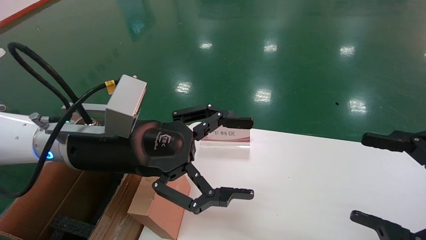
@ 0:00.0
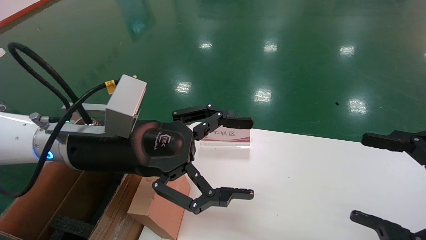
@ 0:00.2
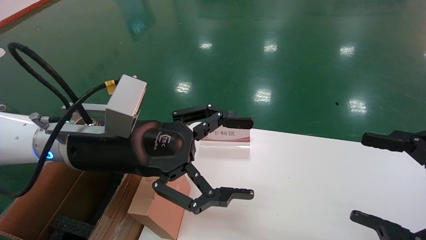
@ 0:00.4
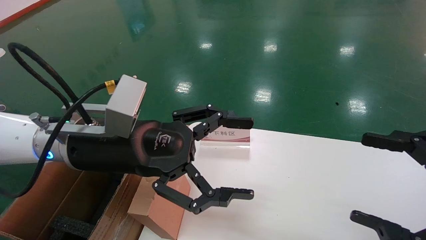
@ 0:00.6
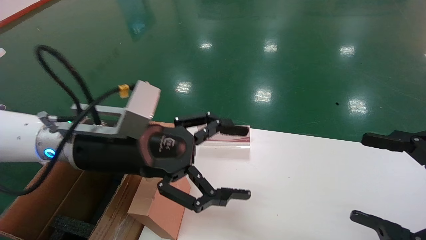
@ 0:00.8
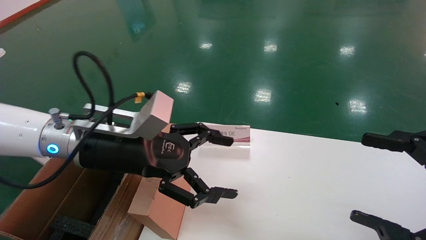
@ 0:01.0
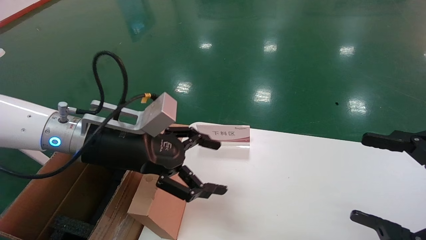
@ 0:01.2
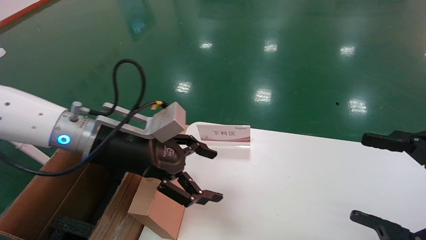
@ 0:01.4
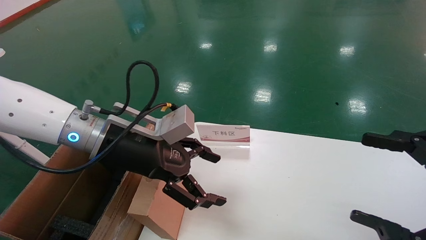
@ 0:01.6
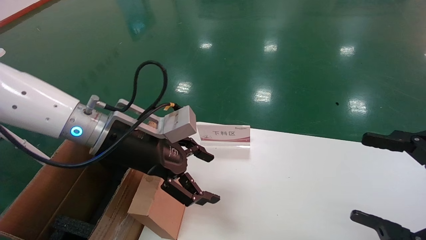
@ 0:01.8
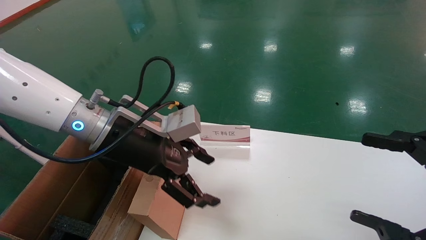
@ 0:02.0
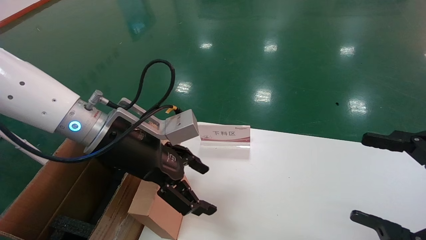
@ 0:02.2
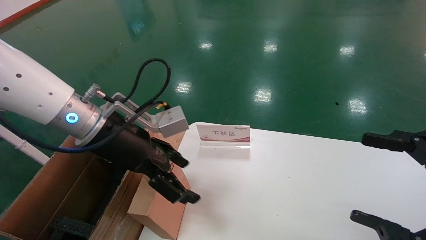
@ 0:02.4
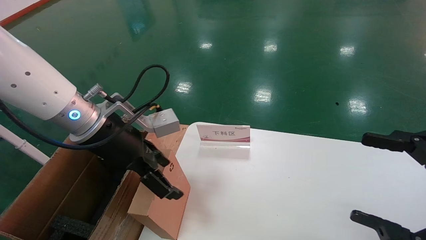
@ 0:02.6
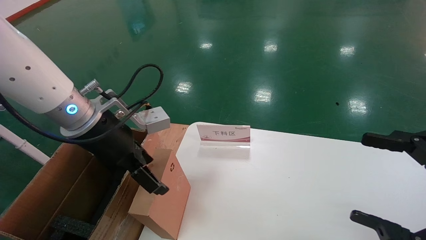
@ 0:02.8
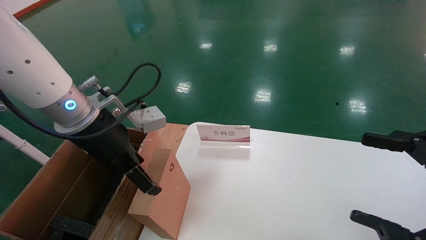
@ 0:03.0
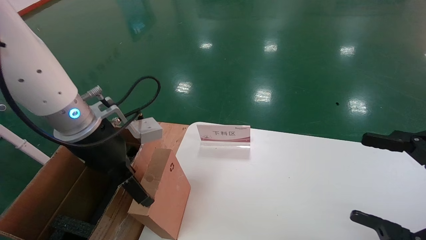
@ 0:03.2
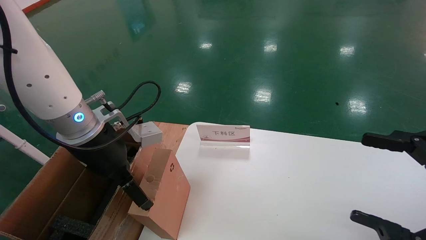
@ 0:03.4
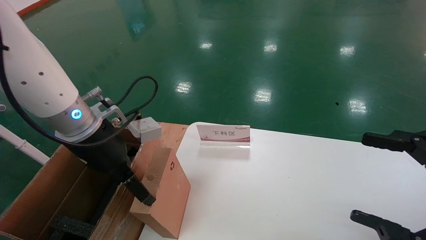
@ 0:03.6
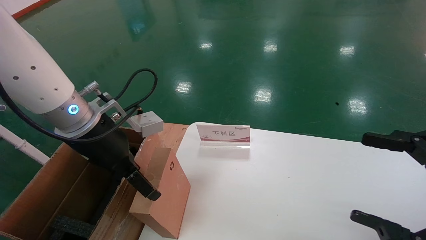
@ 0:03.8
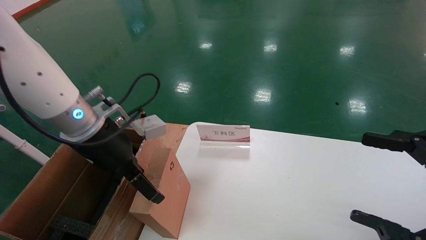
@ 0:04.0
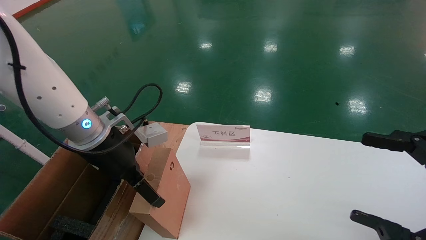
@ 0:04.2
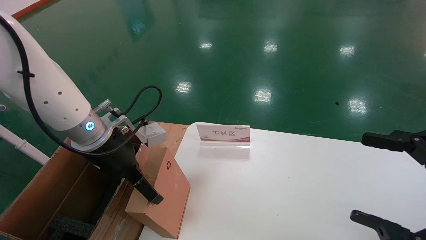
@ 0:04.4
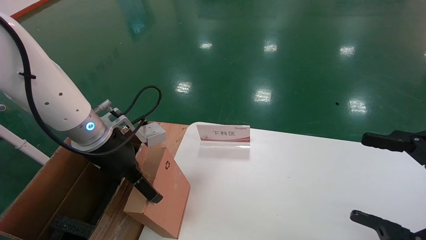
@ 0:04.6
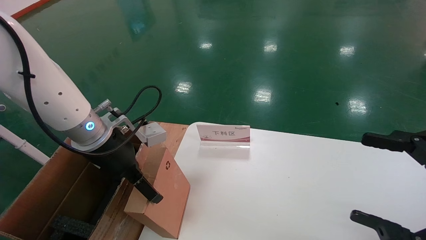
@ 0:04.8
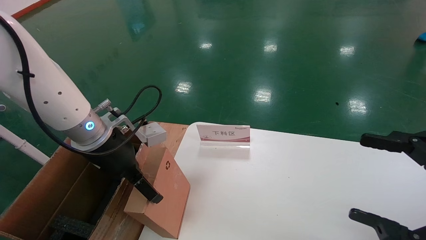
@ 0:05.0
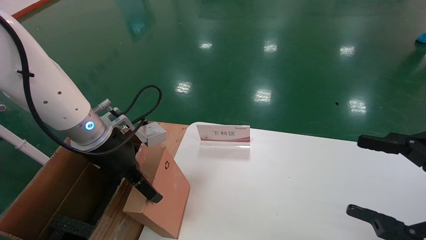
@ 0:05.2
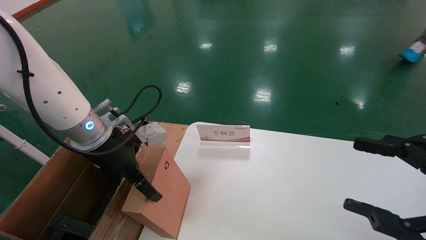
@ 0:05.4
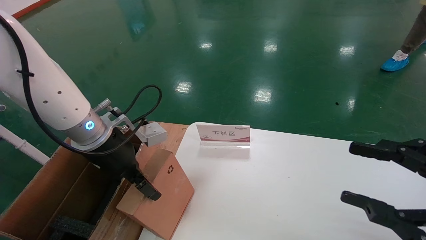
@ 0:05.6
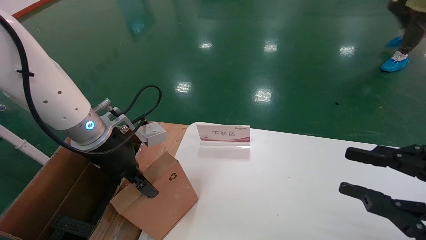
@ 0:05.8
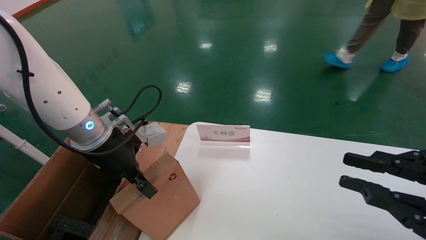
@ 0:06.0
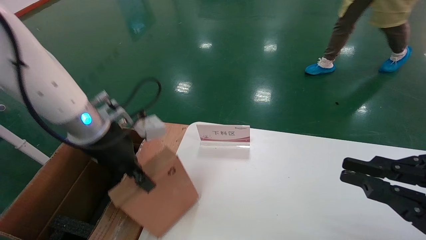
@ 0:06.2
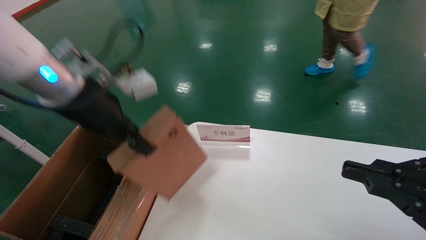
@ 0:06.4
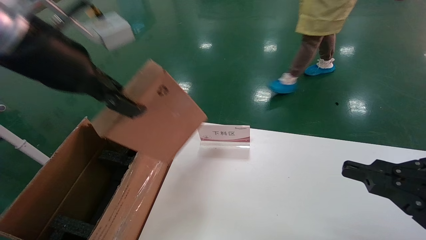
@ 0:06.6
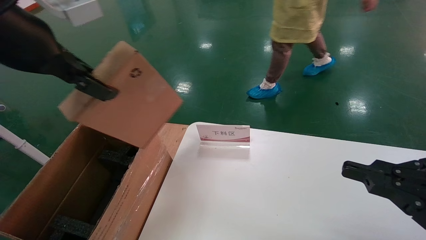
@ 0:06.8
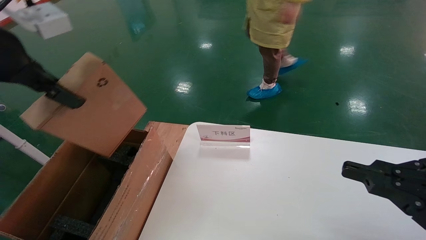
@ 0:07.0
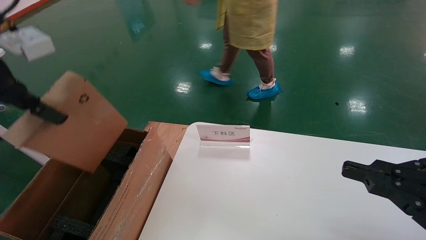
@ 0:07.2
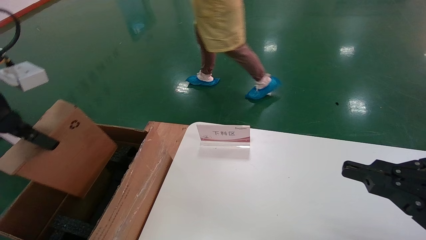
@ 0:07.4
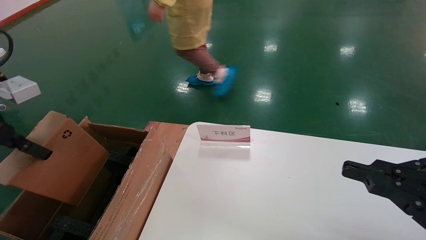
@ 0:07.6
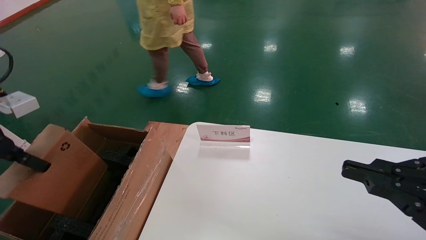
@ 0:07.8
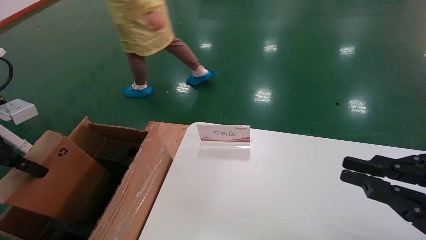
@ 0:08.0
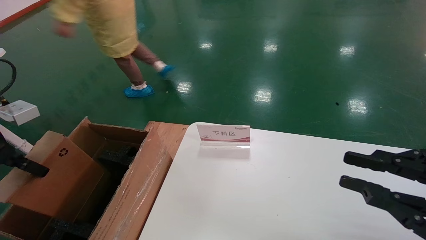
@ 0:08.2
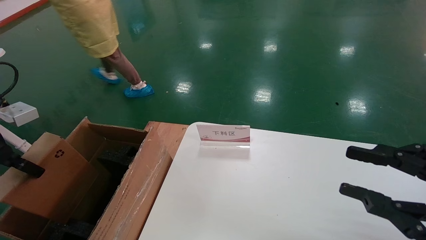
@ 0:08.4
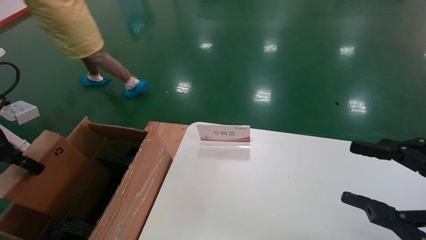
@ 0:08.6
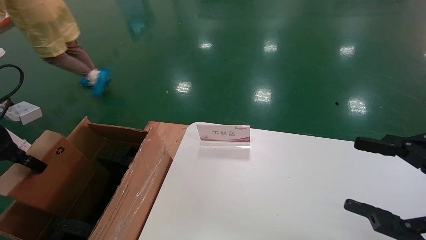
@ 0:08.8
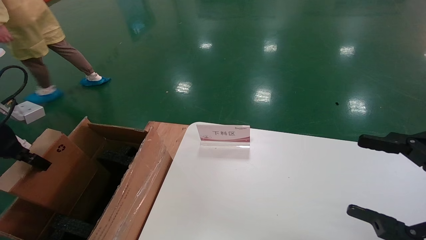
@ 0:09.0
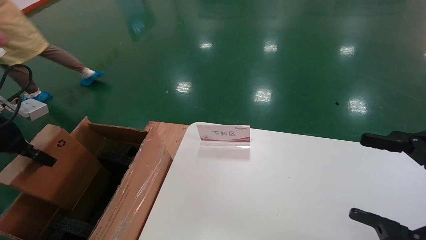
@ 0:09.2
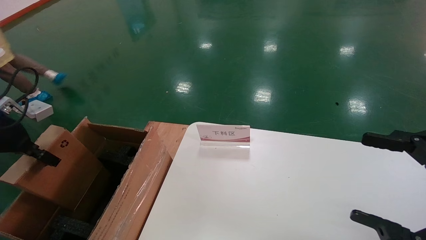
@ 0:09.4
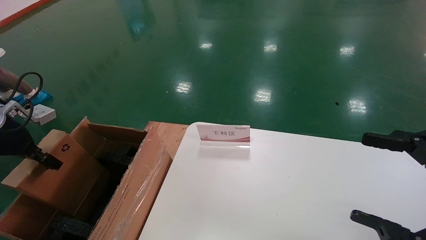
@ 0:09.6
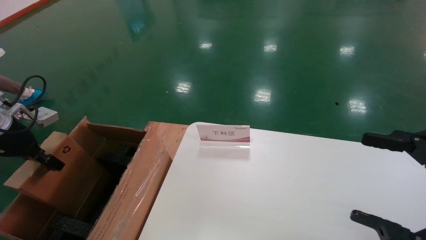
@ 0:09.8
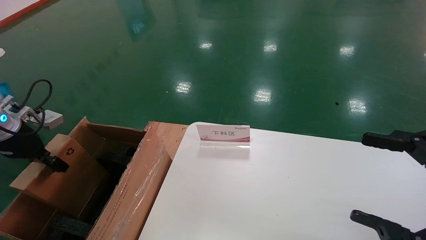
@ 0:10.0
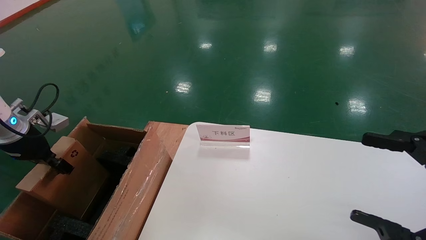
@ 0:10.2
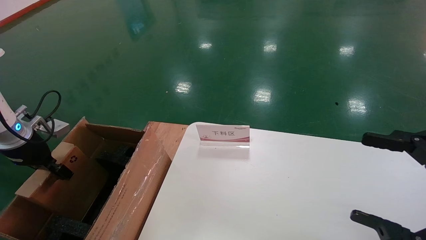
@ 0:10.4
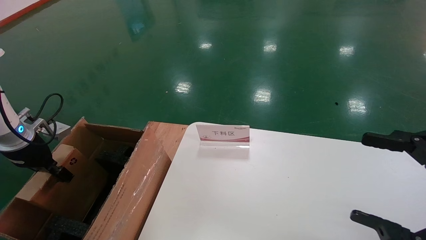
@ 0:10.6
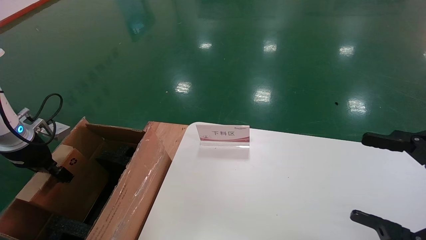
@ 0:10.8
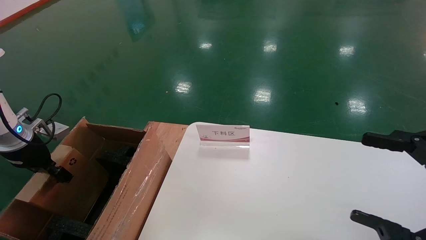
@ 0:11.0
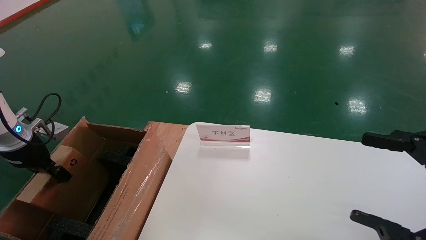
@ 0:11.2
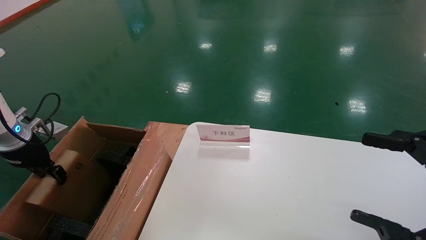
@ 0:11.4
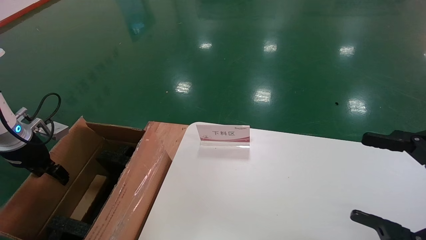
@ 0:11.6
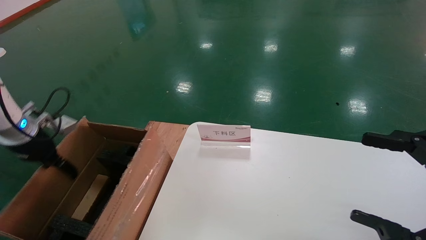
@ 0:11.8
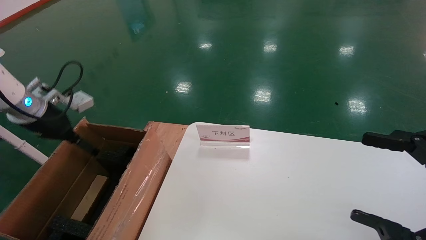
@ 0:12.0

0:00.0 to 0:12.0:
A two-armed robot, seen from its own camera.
Task of the whole recording: pick up the small cardboard box and load it into the large cardboard box.
Step, 0:00.8 to 0:06.4: Pick up the mouse and power cord box.
Step, 0:06.6 to 0:11.6: Place the mouse and power cord box into the case.
0:03.0 to 0:04.4: The grippers stay close to where they were, moving slightly.
0:04.4 to 0:06.0: The left gripper closes up. Meanwhile the right gripper closes its fingers.
0:06.0 to 0:07.6: The left gripper moves to the left, backward and upward, approximately 20 cm.
0:07.6 to 0:09.0: The right gripper opens; the left gripper heads to the left and downward, covering roughly 10 cm.
0:09.0 to 0:10.4: The left gripper moves downward and forward, about 10 cm.
0:10.4 to 0:12.0: The left gripper travels upward and to the right by approximately 10 cm, and opens up.

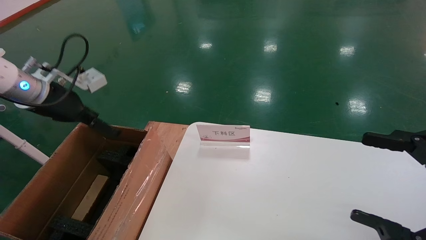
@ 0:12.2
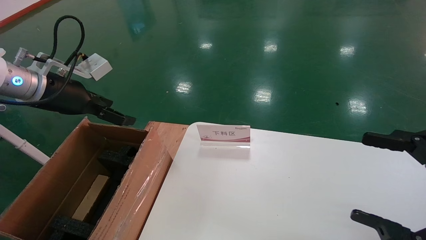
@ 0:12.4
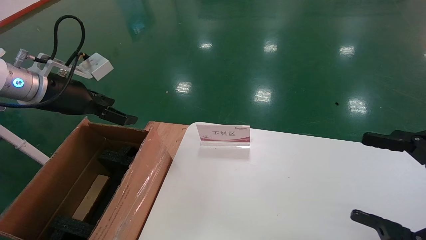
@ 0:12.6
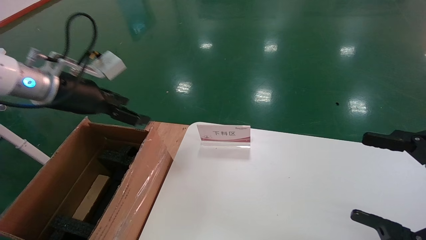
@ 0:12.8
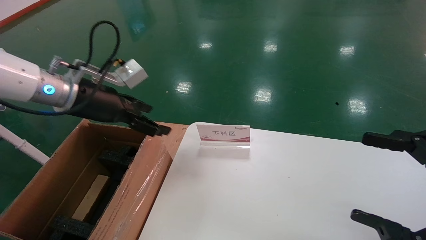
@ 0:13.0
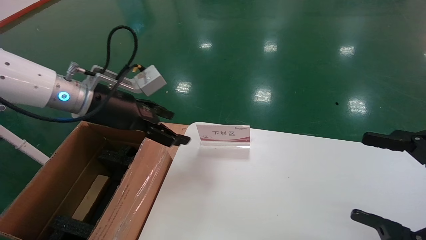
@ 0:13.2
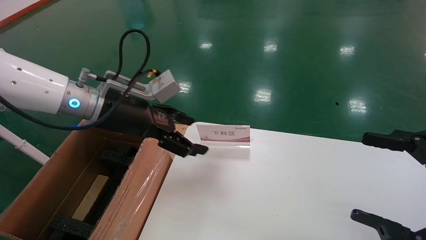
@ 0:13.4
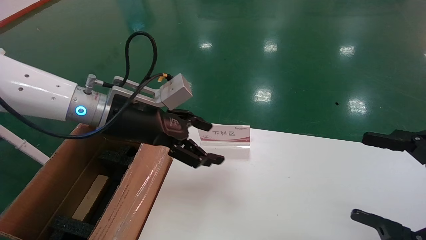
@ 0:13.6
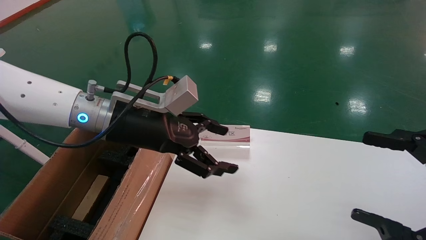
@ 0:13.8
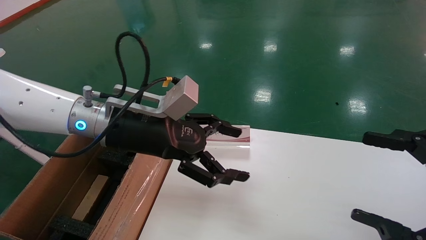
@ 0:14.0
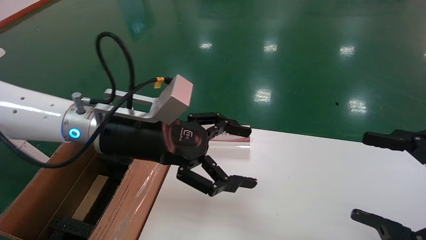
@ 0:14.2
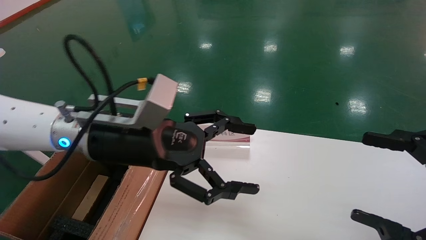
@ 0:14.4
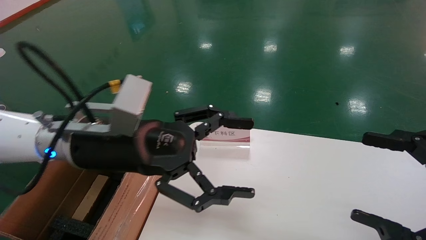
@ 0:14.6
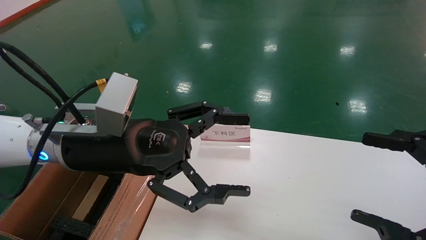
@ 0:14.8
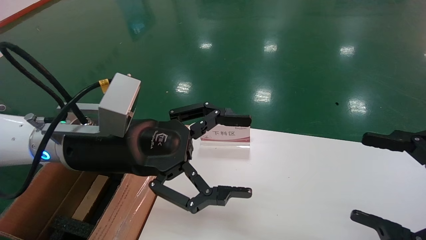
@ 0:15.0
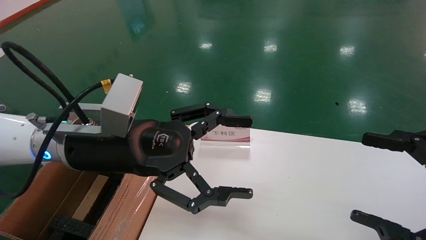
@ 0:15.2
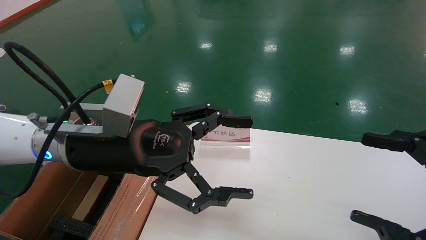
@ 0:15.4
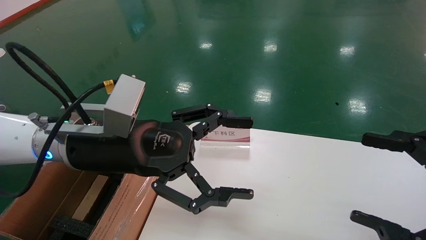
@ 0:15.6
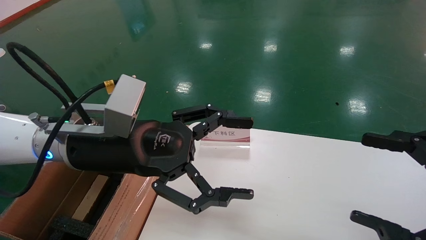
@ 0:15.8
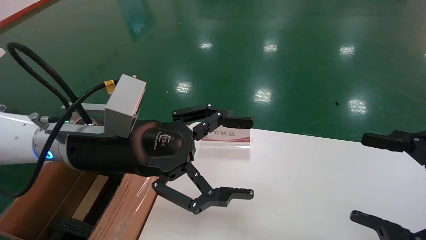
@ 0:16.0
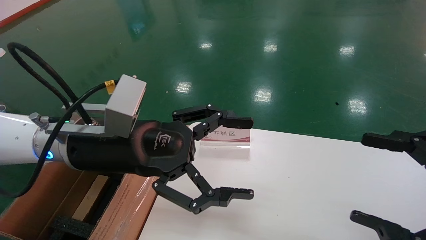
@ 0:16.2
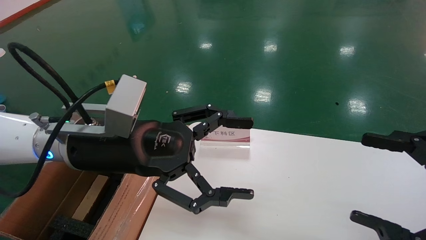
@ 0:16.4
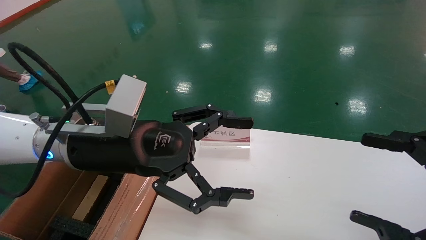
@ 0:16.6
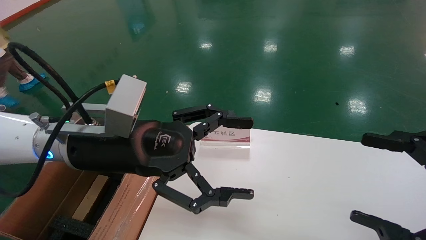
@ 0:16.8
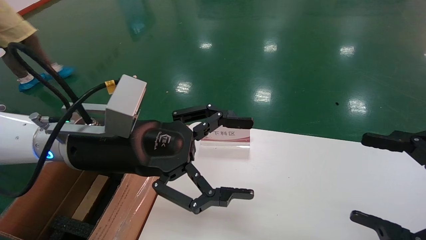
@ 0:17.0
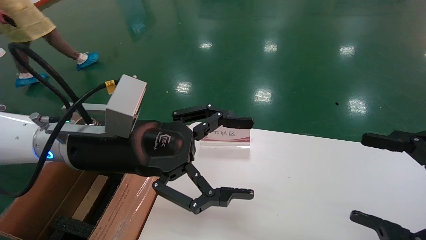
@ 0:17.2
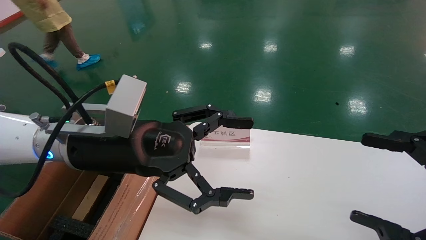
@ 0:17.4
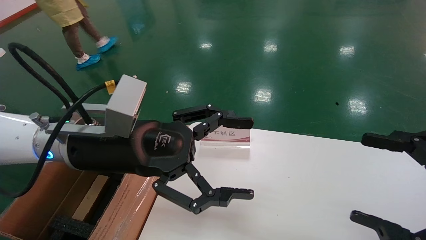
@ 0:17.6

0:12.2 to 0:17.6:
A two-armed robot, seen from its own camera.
Task of the whole recording: pick up the small cardboard box and load it into the large cardboard box.
0:12.2 to 0:13.6: The left gripper goes approximately 20 cm to the right.
0:13.6 to 0:15.0: The left gripper goes some 5 cm backward.
0:15.0 to 0:17.6: The two grippers keep their place.
